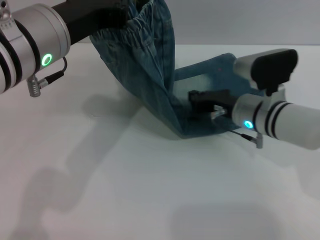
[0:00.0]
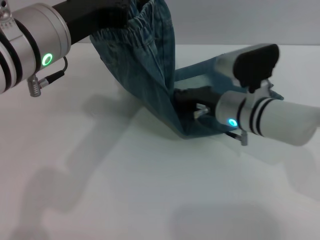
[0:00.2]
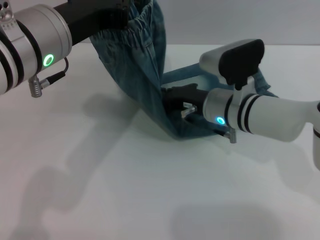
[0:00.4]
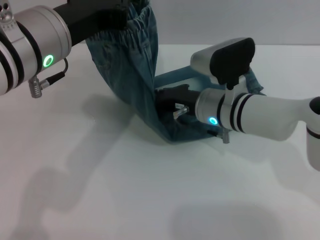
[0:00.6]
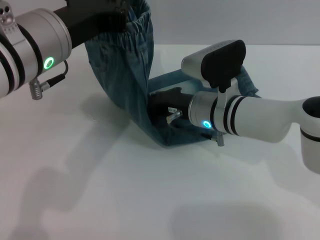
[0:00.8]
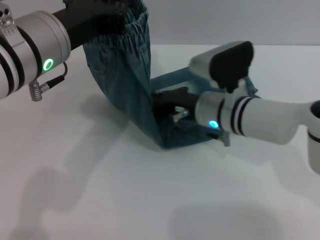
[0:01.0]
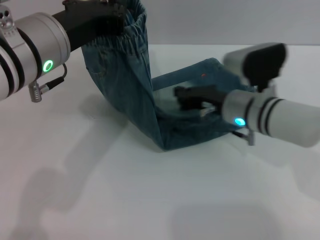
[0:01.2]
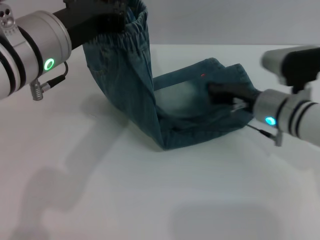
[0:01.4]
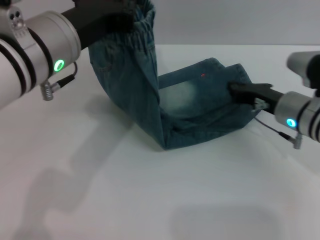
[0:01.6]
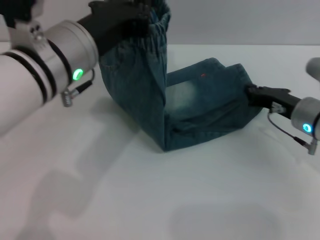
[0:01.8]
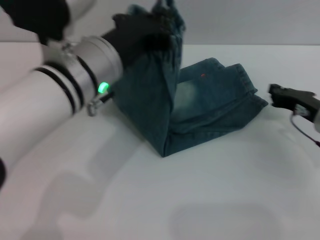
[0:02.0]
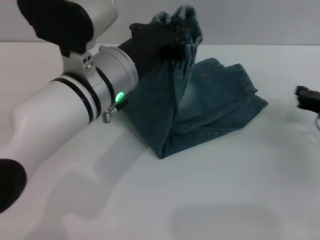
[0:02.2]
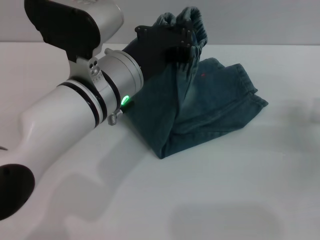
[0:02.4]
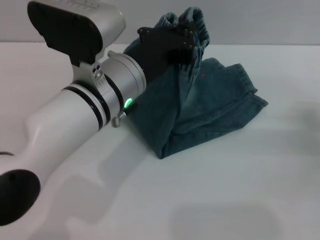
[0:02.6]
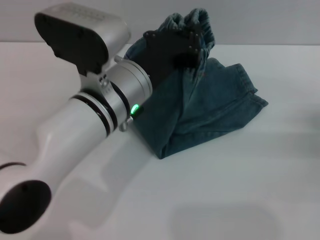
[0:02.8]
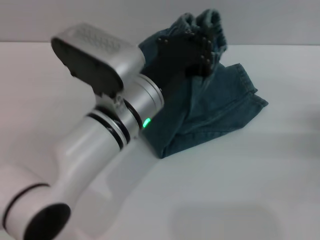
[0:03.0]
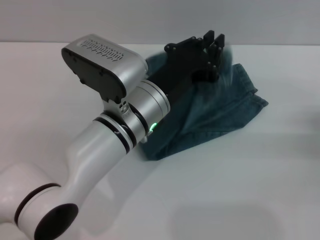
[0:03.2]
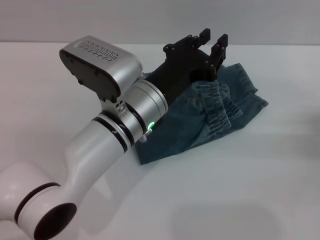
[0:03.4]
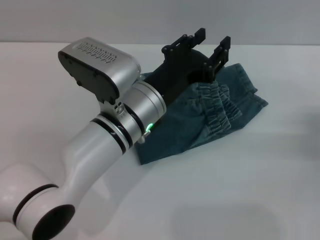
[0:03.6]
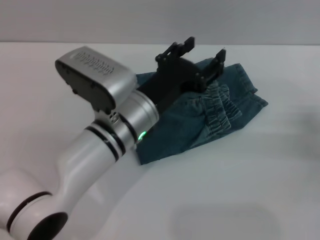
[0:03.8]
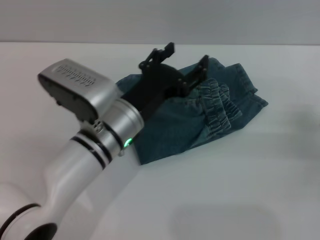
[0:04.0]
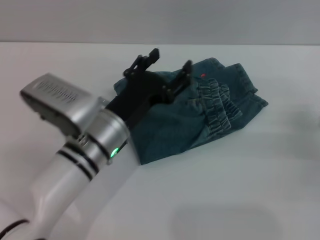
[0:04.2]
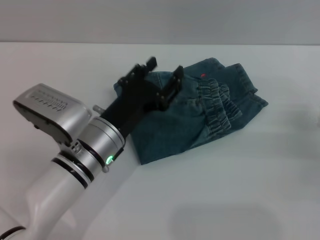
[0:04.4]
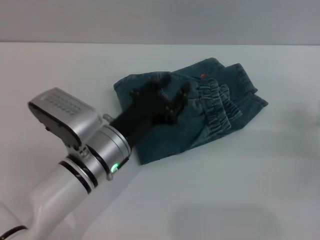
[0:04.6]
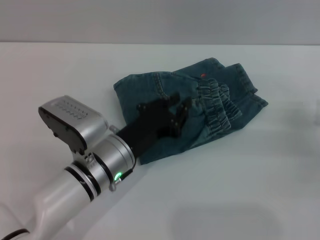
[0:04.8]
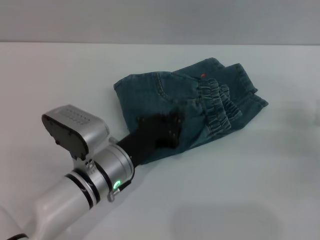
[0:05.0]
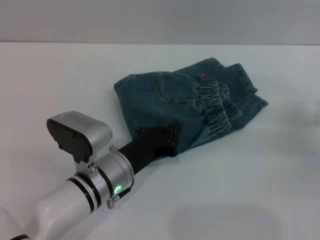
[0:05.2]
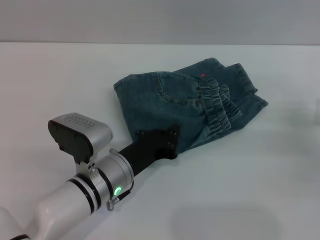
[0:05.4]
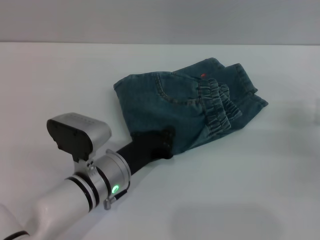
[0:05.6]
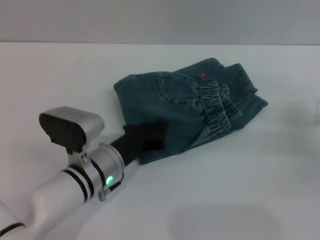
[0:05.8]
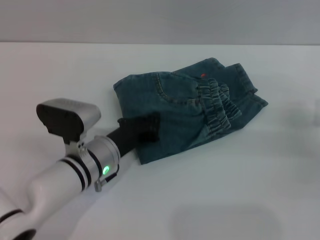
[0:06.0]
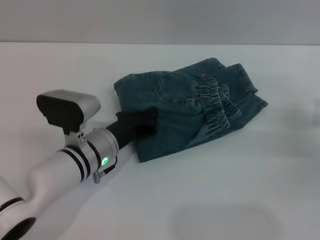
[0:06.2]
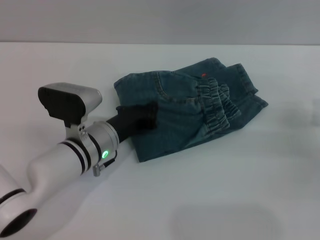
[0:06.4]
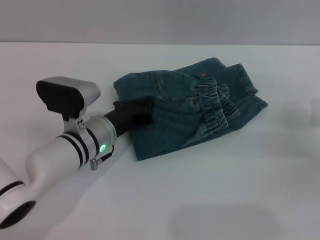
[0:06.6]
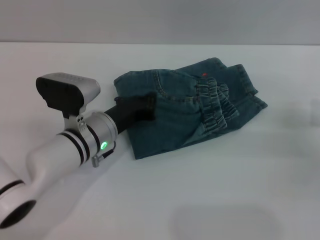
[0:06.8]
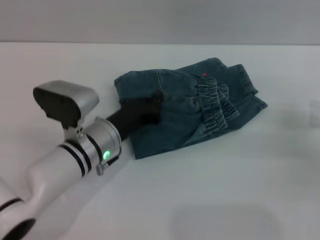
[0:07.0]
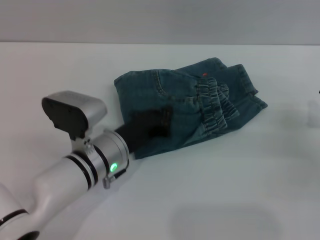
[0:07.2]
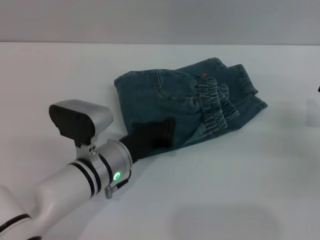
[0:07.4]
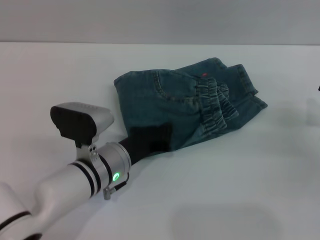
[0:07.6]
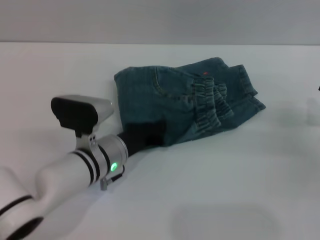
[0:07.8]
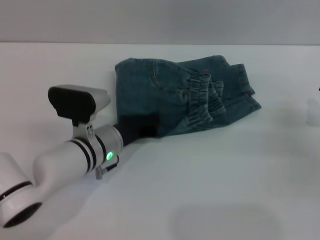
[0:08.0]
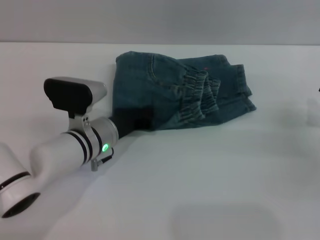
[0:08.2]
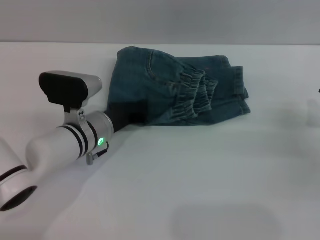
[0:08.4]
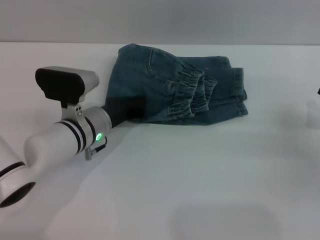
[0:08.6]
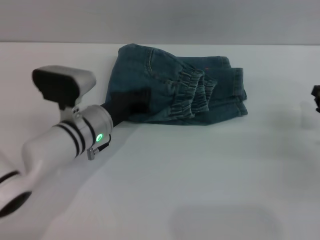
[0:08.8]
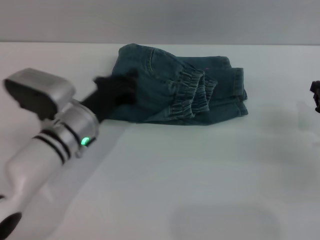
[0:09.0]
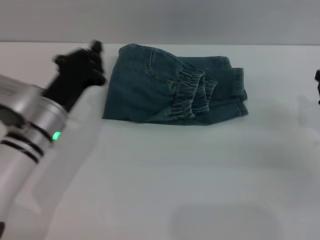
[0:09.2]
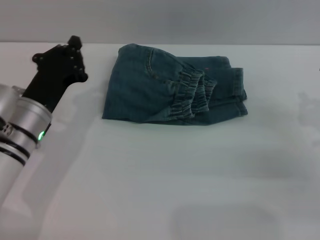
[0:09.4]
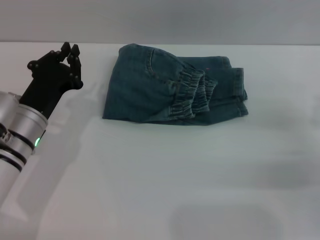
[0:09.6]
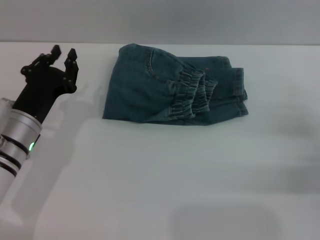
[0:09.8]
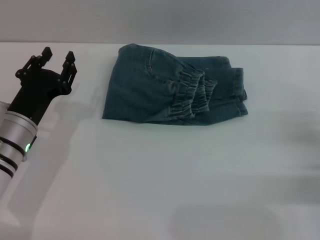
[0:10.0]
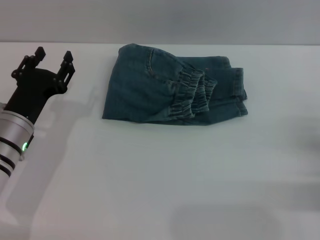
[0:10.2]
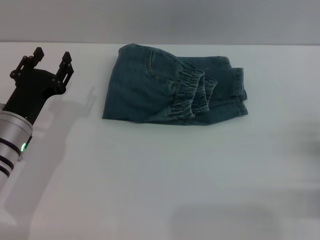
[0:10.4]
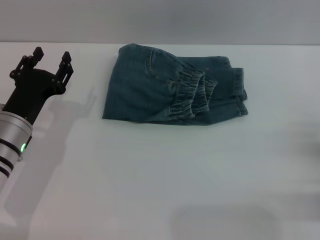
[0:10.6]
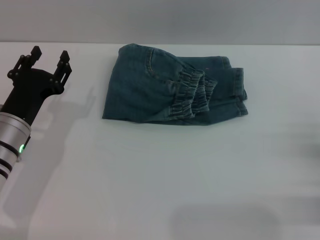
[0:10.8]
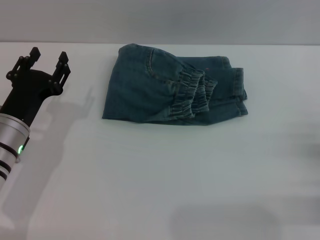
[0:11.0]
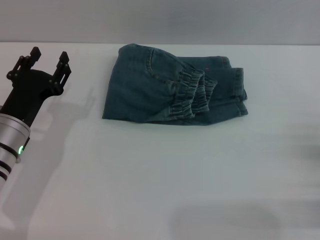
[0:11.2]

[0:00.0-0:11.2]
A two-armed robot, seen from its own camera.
Step, 0:00.0 to 0:03.4: Fold the pants from left to right with the left gripper.
Step, 0:03.6 to 0:08.8: Place the folded trousers onto the center area with the left grippers.
0:00.0 to 0:01.6: The right gripper goes about 5 cm to the right.
0:01.6 to 0:03.2: The right gripper travels to the right and backward by roughly 15 cm. Meanwhile the left gripper heads downward and to the right, covering approximately 15 cm.
0:03.2 to 0:04.8: The left gripper travels downward and to the left by approximately 10 cm, and opens.
0:04.8 to 0:06.4: The left gripper moves roughly 5 cm, and closes its fingers.
0:06.4 to 0:08.0: The grippers move only a little.
0:08.0 to 0:09.6: The left gripper moves to the left, about 10 cm.
0:09.6 to 0:11.2: The left gripper opens its fingers; the right gripper goes roughly 5 cm backward, and opens its fingers.

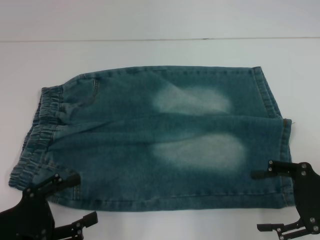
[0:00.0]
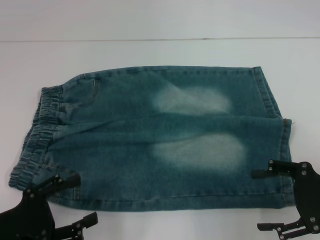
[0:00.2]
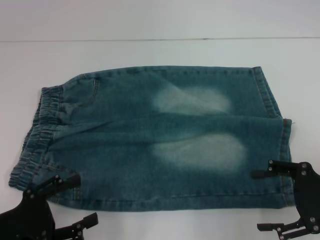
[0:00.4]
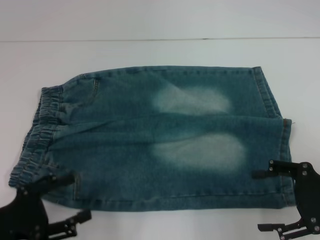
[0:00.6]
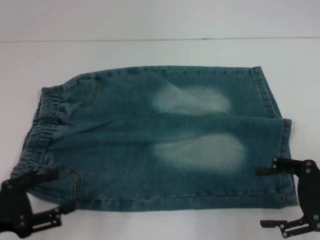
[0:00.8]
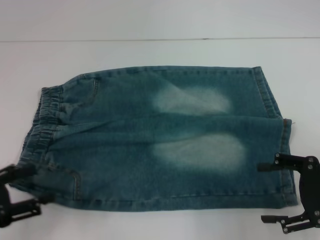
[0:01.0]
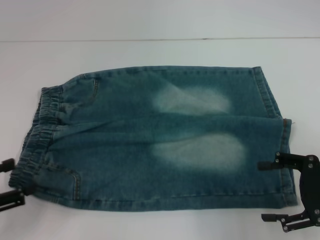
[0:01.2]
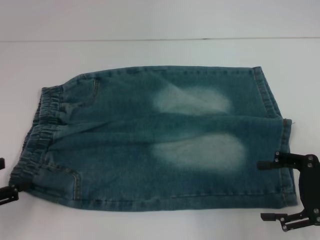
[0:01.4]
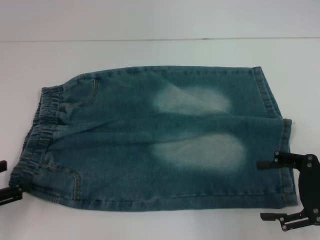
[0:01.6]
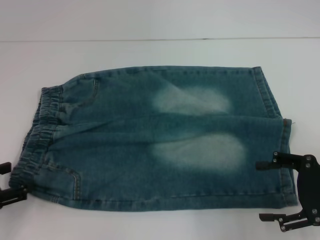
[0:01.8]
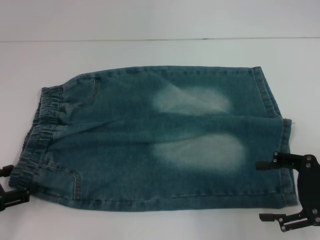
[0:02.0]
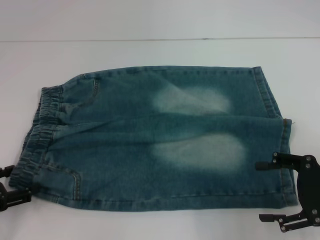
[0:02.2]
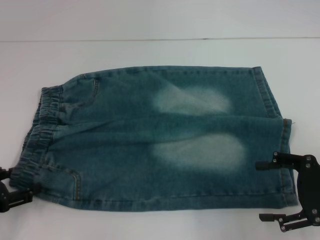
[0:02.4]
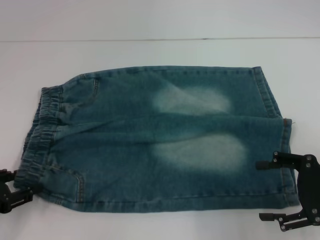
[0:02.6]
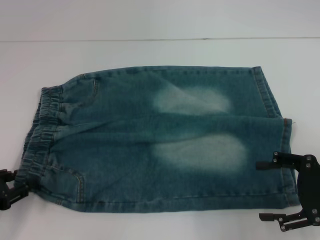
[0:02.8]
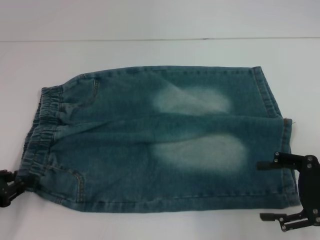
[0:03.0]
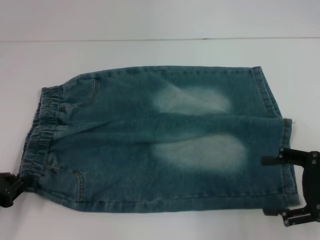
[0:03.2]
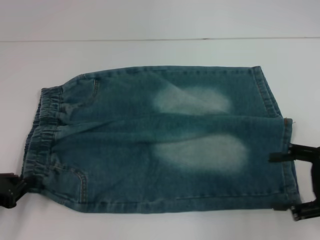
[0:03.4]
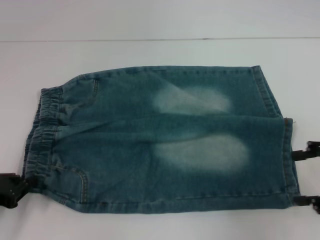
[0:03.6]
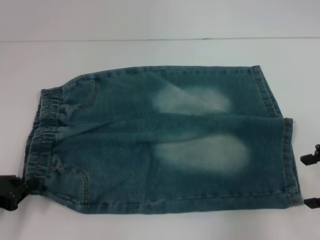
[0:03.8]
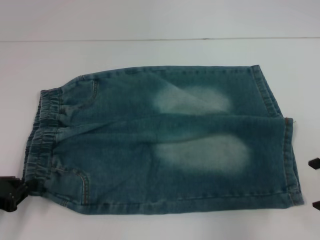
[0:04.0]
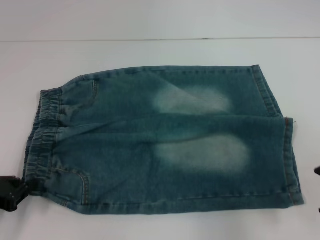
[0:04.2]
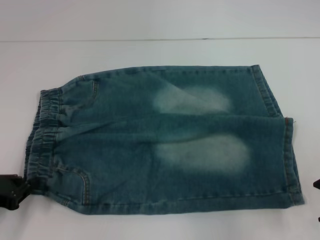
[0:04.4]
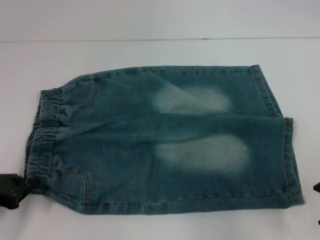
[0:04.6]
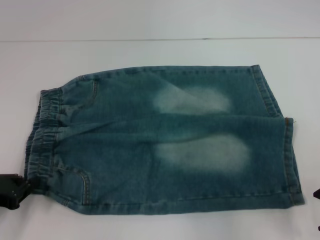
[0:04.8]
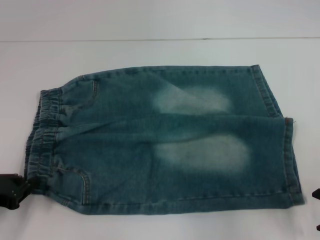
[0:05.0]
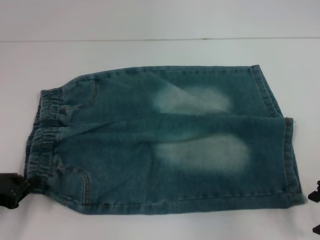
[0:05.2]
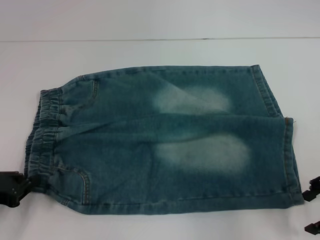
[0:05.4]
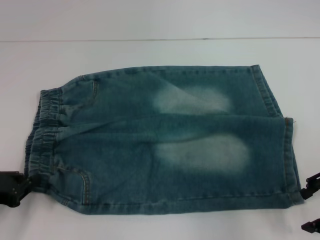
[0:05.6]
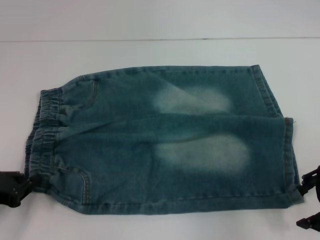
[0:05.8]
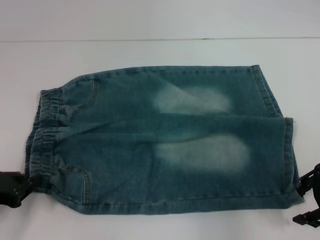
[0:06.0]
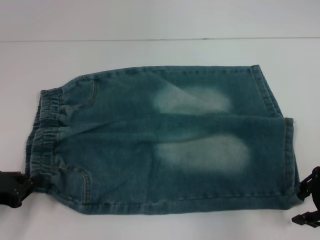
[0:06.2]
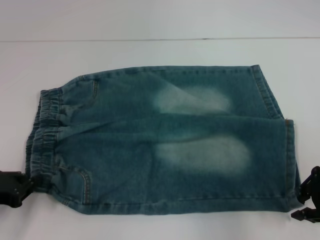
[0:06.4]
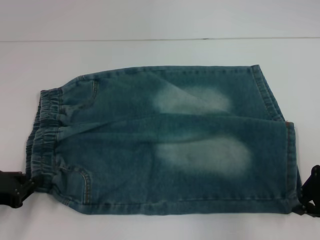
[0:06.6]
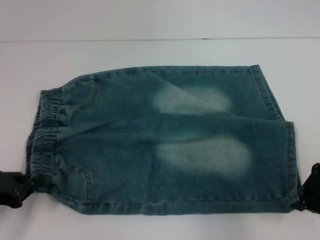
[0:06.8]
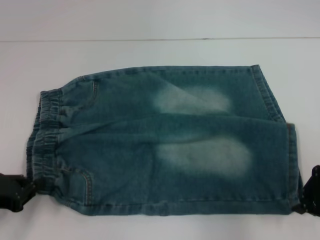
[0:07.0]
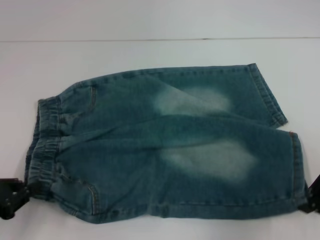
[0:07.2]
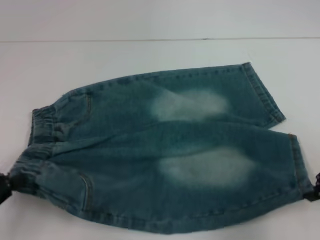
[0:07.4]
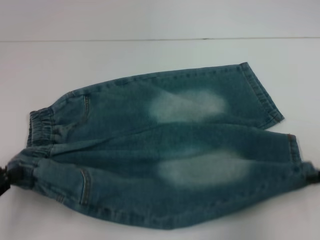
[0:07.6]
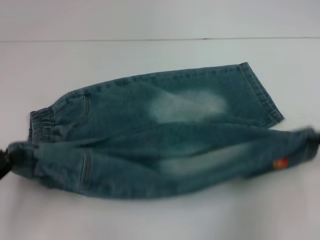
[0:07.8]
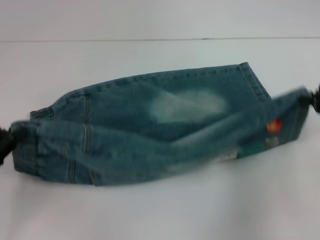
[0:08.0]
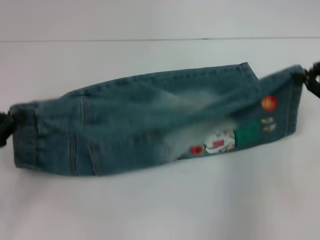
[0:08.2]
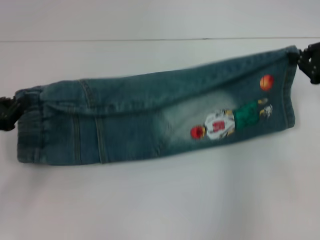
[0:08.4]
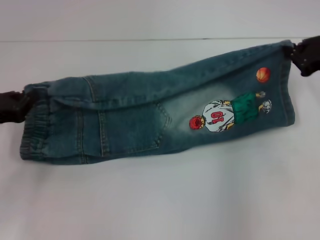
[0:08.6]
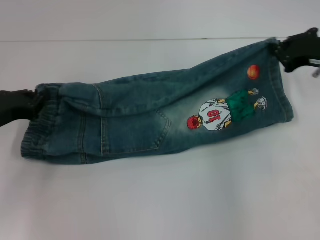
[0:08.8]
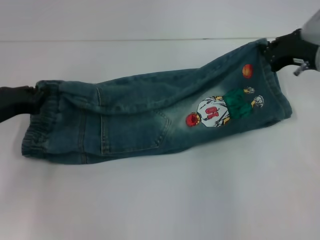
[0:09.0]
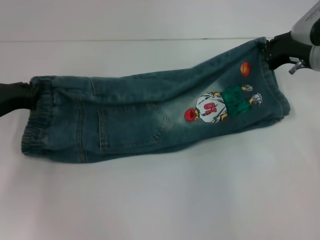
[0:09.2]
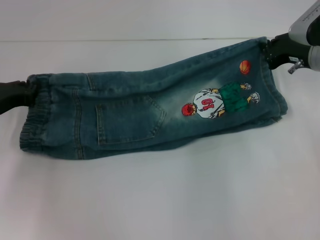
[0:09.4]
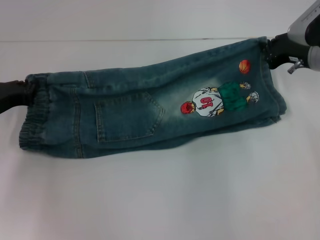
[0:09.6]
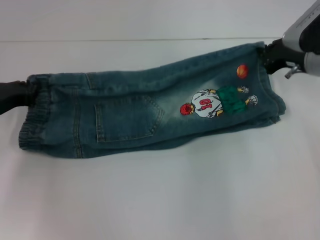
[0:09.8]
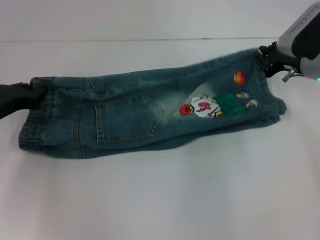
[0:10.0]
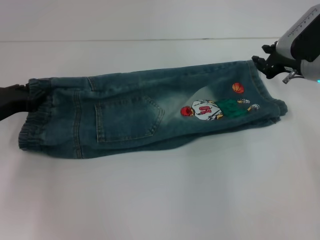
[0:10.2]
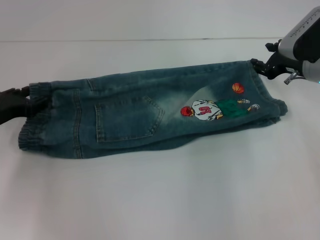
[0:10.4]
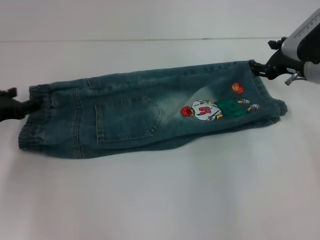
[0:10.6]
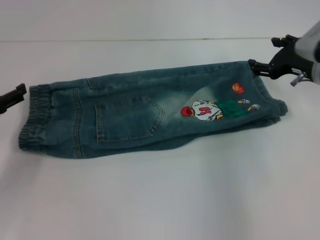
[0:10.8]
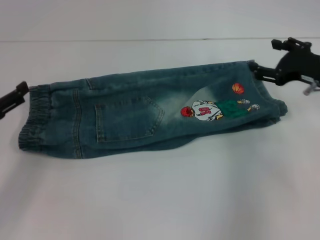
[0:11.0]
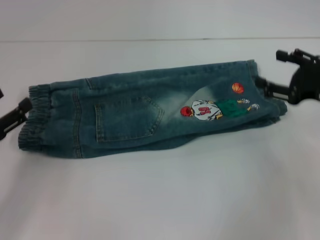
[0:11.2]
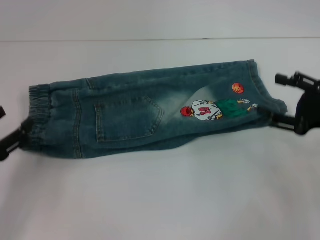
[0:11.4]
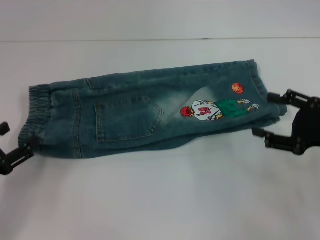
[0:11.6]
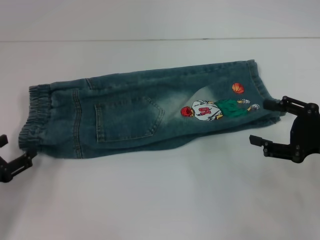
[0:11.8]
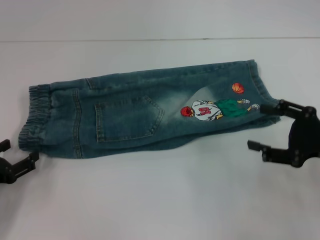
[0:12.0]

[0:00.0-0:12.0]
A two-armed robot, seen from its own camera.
Step, 0:00.0 to 0:03.2: Hold the lower left waistband with your left hand.
Step, 0:03.4 to 0:06.8: Grab the lower right pant leg with your right hand.
Step, 0:07.2 to 0:10.2: Fold upward with your right hand.
0:00.0 to 0:01.6: The left gripper shifts approximately 5 cm to the left.
0:01.6 to 0:03.0: The left gripper closes up.
0:03.0 to 0:04.4: The left gripper closes its fingers, while the right gripper shifts approximately 5 cm upward.
0:04.4 to 0:06.0: The grippers stay close to where they were, moving slightly.
0:06.0 to 0:07.6: The left gripper moves about 5 cm; the right gripper changes place by some 5 cm, and closes its fingers.
0:07.6 to 0:09.0: The left gripper shifts roughly 15 cm forward, while the right gripper shifts roughly 15 cm forward and to the left.
0:09.0 to 0:10.4: The left gripper opens up.
0:10.4 to 0:12.0: The grippers both shift backward by some 15 cm. The right gripper opens its fingers, while the left gripper opens its fingers.
